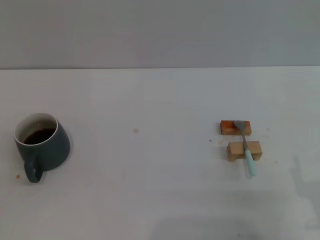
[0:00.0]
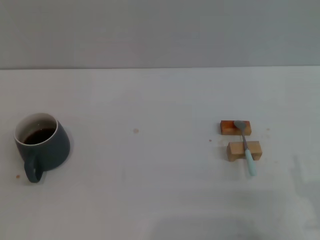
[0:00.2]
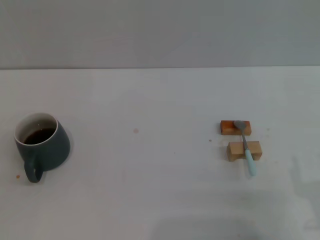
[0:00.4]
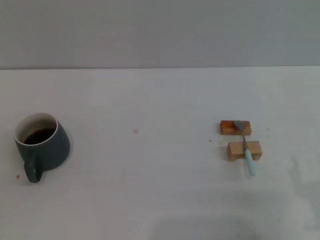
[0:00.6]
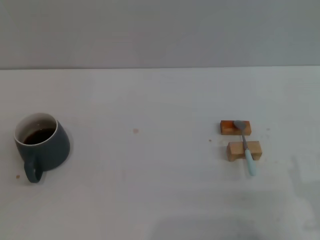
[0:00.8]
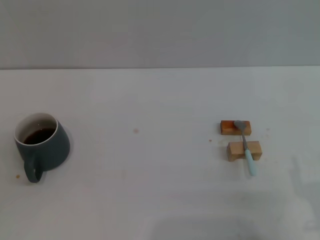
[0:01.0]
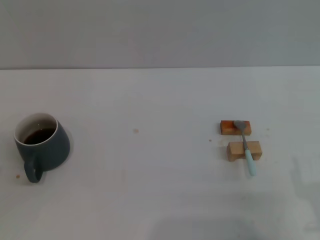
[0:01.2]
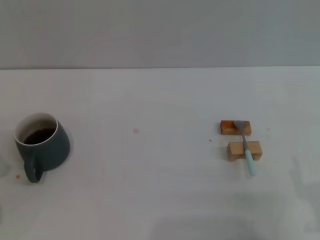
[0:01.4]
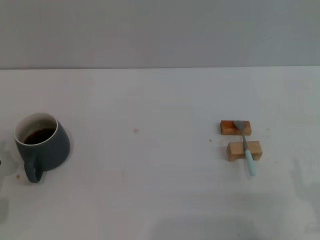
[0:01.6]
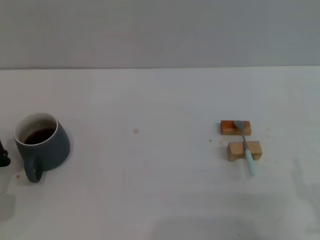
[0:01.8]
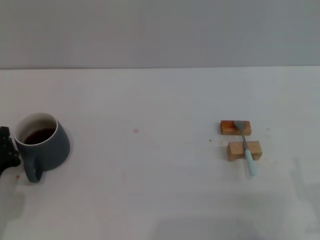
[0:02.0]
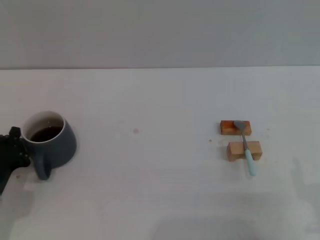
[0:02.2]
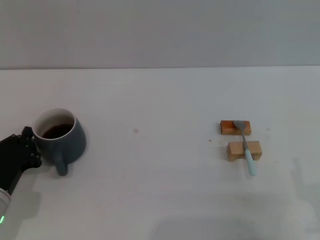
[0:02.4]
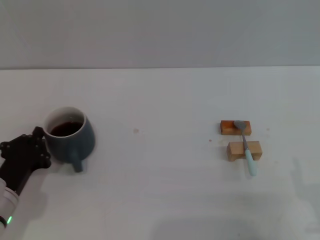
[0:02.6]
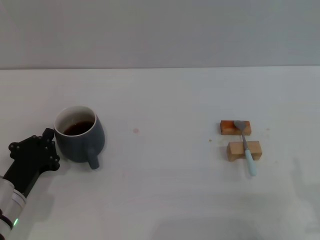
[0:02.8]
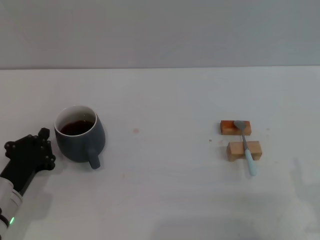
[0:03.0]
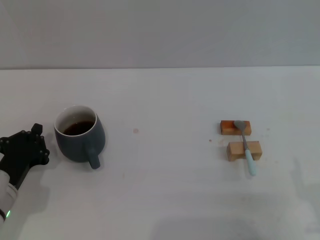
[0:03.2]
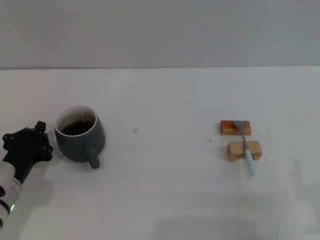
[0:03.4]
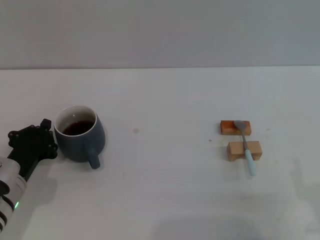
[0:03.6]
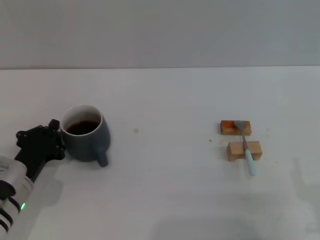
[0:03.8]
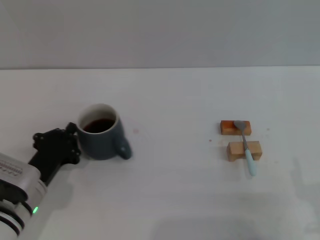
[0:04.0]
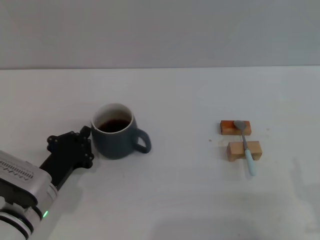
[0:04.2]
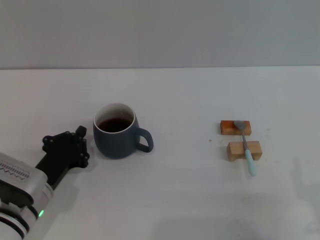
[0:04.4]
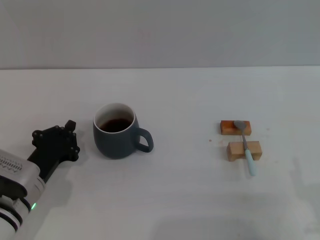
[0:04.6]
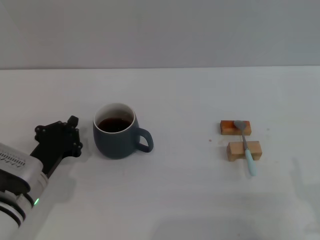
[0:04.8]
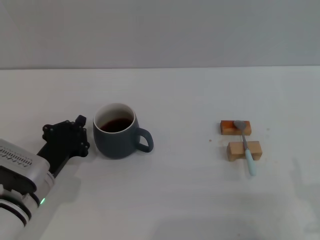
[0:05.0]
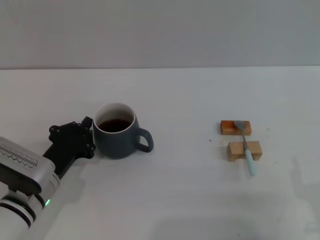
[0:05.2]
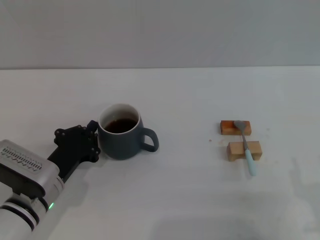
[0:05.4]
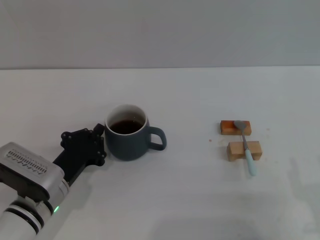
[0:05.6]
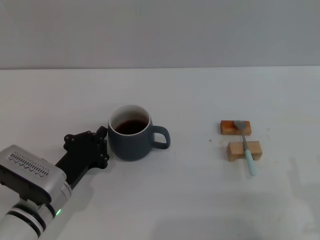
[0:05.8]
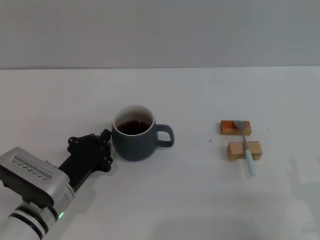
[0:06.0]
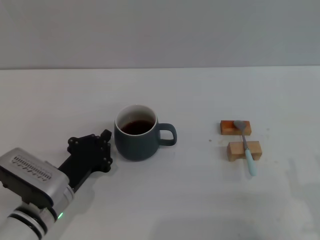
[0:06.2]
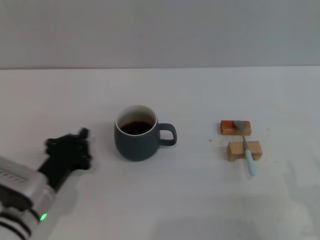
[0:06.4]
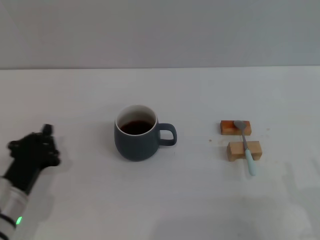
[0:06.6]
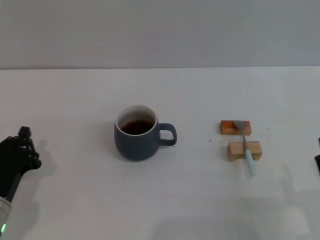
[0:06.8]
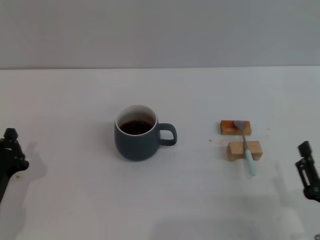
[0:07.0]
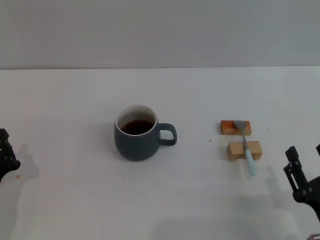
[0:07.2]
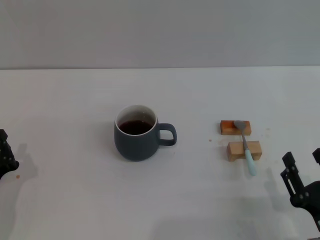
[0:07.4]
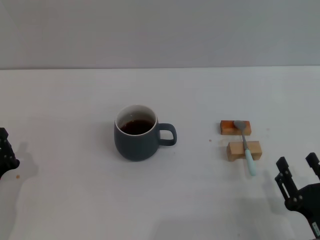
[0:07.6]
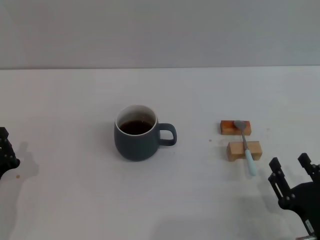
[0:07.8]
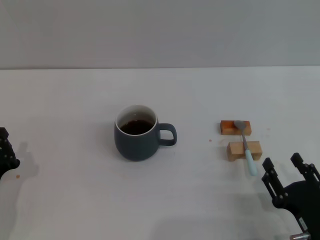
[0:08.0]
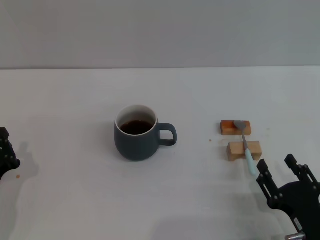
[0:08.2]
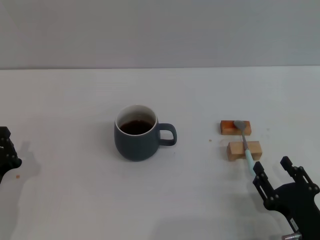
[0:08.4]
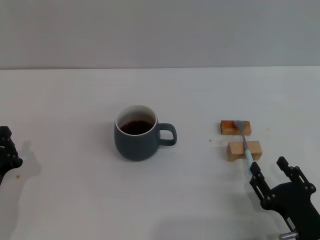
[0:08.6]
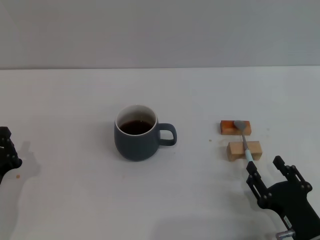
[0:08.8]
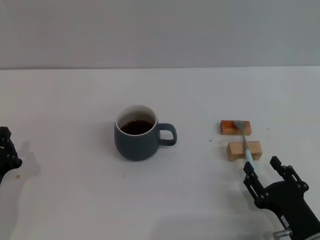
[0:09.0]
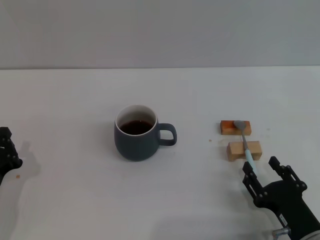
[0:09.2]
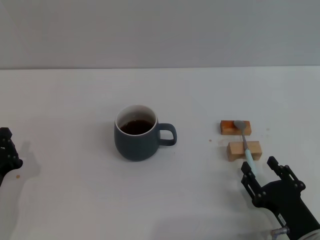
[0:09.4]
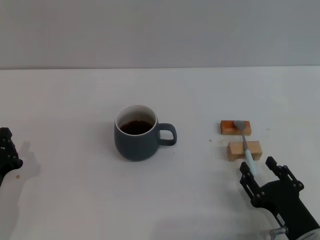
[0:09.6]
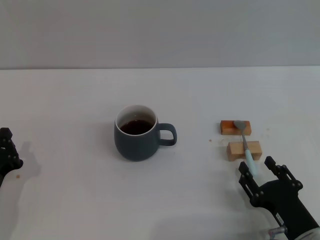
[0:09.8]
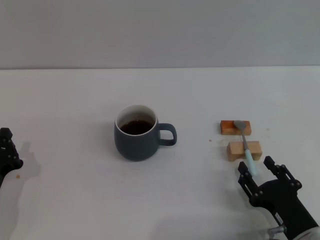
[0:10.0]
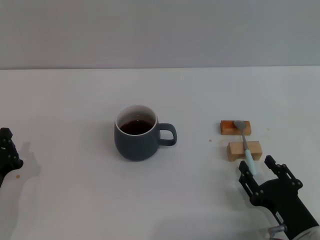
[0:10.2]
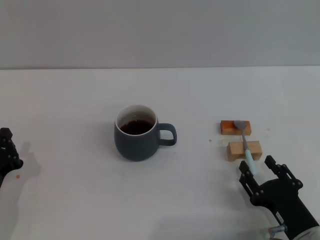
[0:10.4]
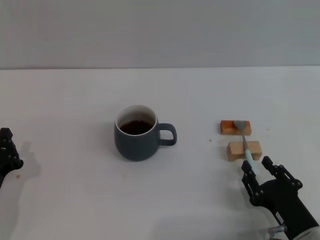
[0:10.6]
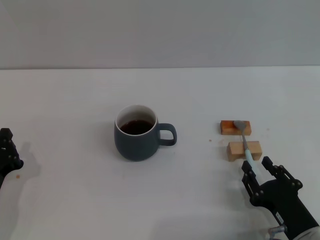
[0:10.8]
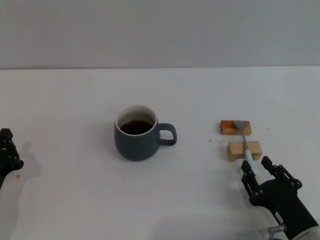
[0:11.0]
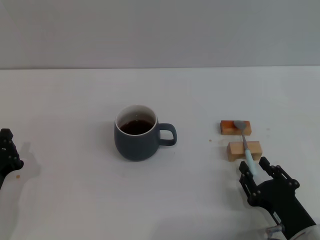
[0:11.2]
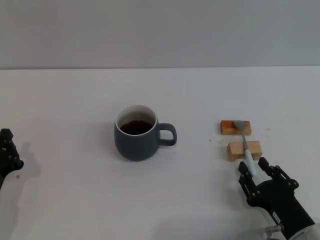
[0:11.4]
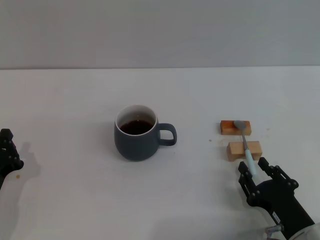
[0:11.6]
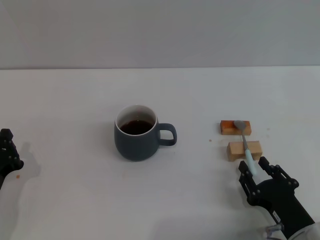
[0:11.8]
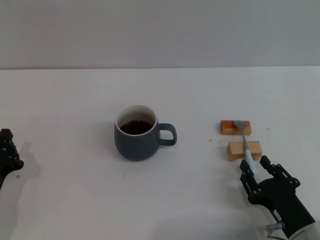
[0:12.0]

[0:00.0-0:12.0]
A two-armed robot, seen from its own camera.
Task of the whole recording: Move the grey cup to the center, lift the blue spoon, stir it three times in the cup, and put the spoon into the cup.
Step, 0:00.0 to 0:06.4: Move the cup with coffee to the center of view with the left gripper.
0:01.6 to 0:03.0: The left gripper moves to the right, about 5 cm.
0:03.0 to 0:04.4: The grippers stay close to where they were, moving slightly.
0:04.4 to 0:06.0: The grippers make only small movements.
0:06.0 to 0:07.6: The left gripper travels to the left by approximately 10 cm.
0:07.6 to 0:09.0: The grippers stay close to where they were, moving slightly.
0:09.0 to 0:12.0: Neither gripper changes place.

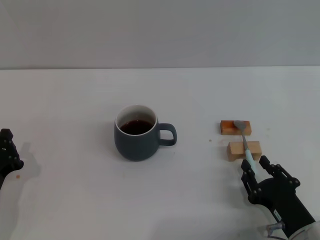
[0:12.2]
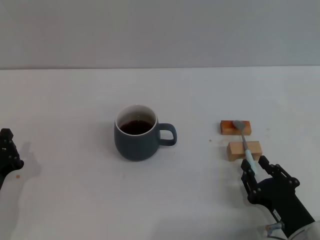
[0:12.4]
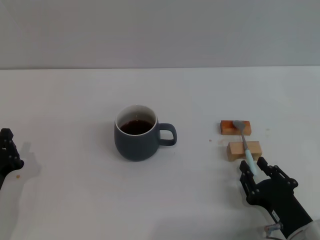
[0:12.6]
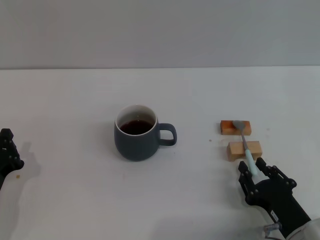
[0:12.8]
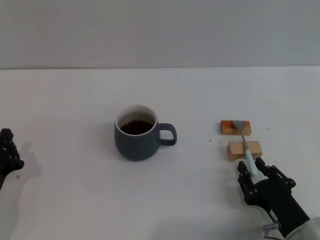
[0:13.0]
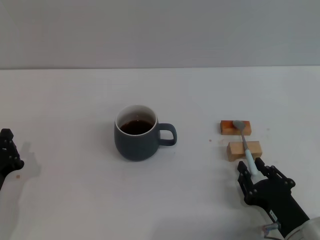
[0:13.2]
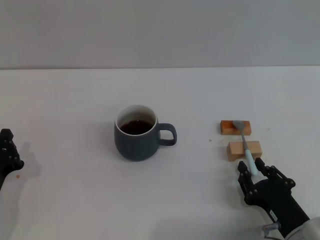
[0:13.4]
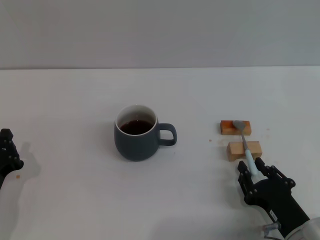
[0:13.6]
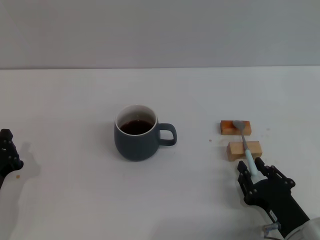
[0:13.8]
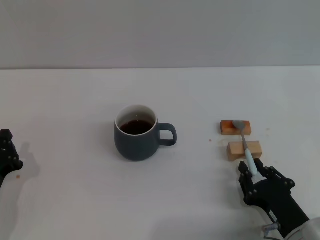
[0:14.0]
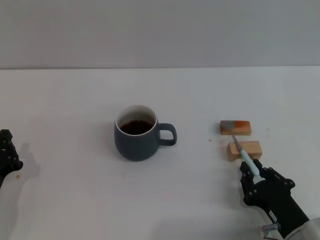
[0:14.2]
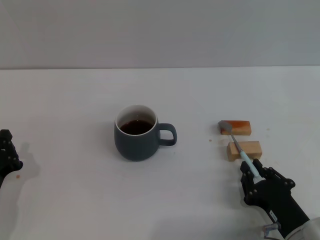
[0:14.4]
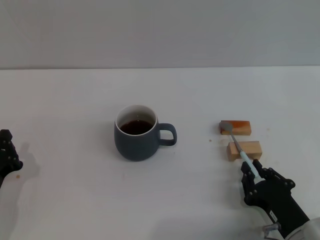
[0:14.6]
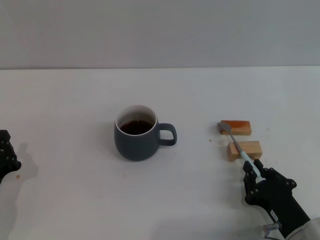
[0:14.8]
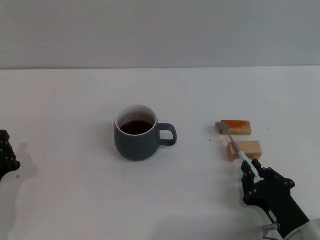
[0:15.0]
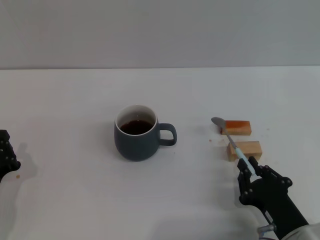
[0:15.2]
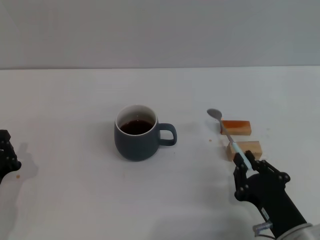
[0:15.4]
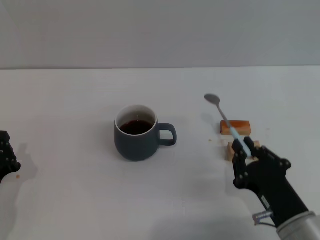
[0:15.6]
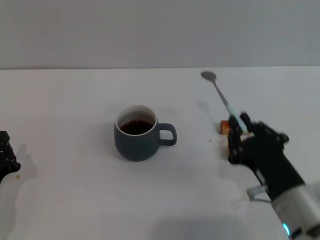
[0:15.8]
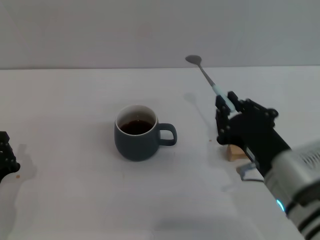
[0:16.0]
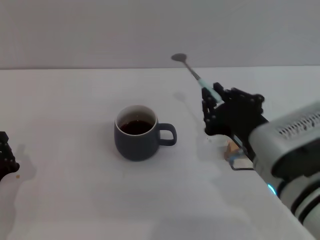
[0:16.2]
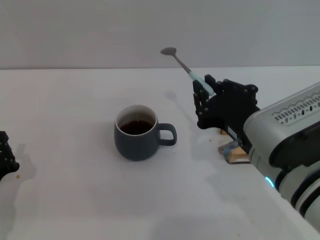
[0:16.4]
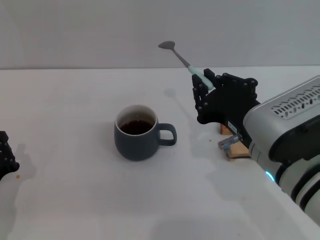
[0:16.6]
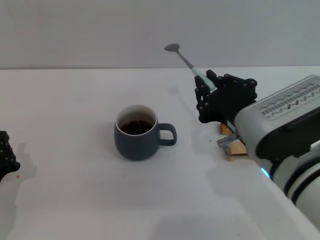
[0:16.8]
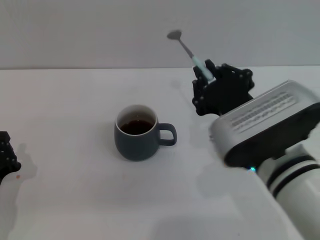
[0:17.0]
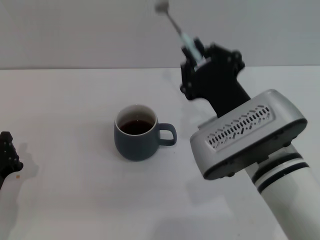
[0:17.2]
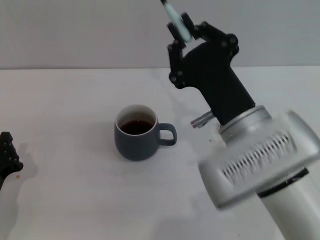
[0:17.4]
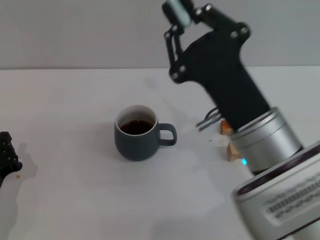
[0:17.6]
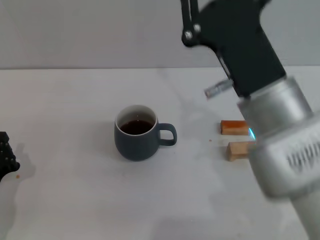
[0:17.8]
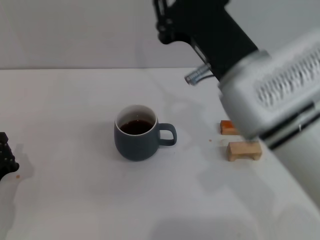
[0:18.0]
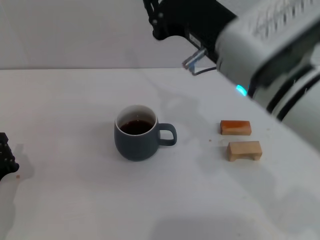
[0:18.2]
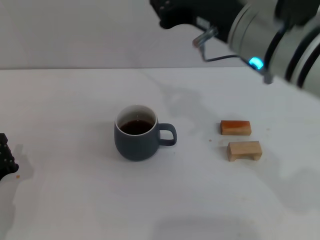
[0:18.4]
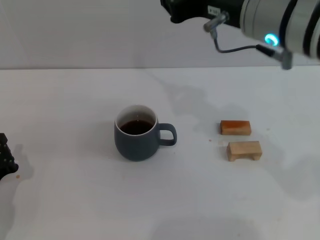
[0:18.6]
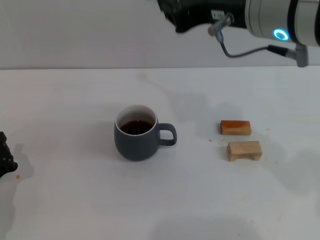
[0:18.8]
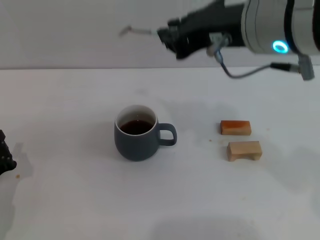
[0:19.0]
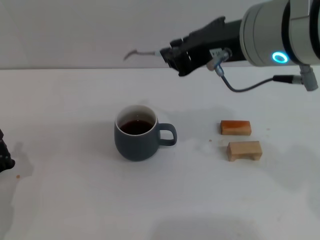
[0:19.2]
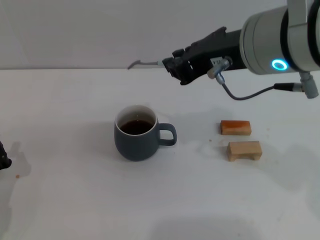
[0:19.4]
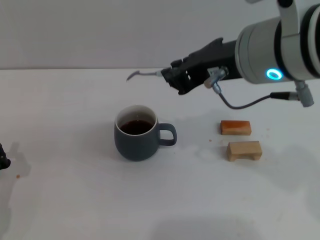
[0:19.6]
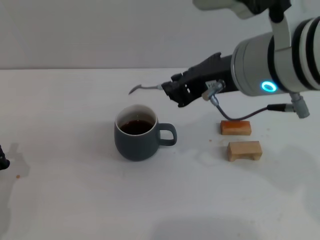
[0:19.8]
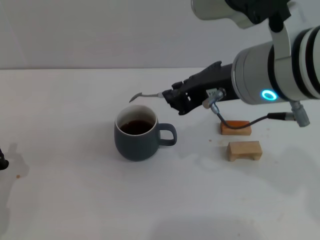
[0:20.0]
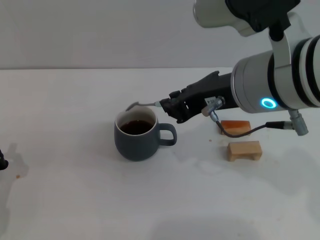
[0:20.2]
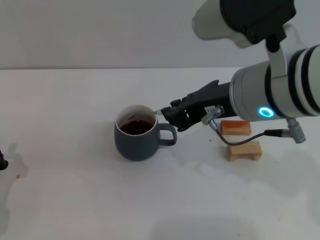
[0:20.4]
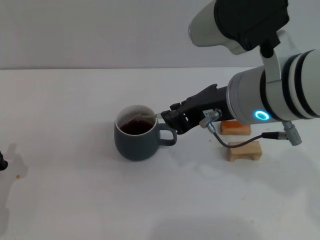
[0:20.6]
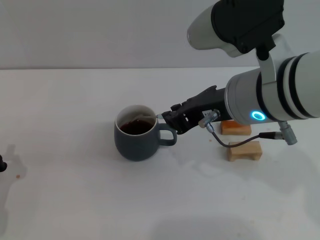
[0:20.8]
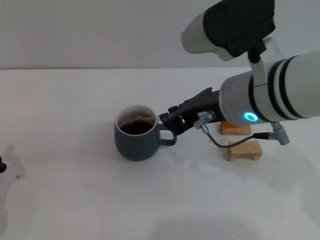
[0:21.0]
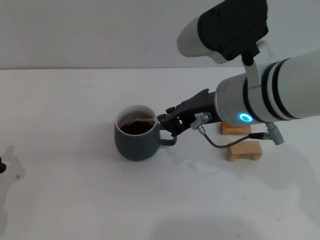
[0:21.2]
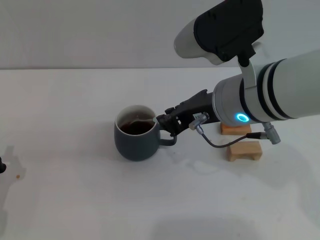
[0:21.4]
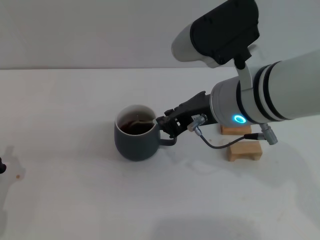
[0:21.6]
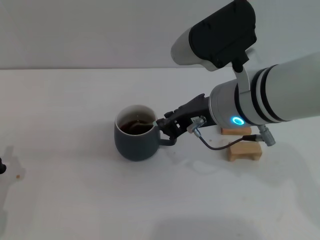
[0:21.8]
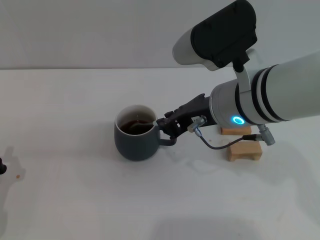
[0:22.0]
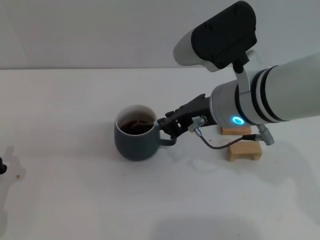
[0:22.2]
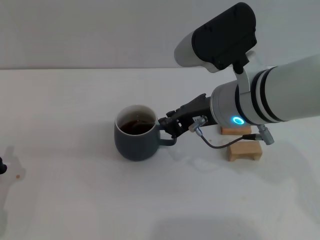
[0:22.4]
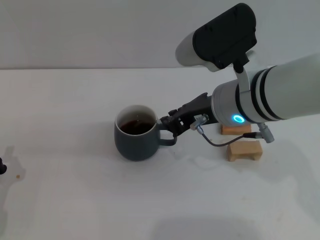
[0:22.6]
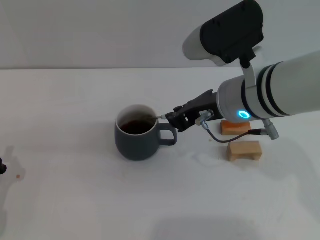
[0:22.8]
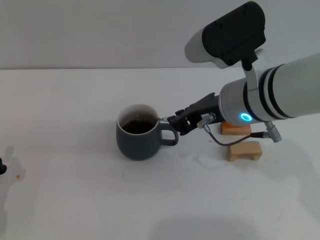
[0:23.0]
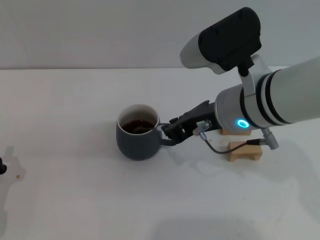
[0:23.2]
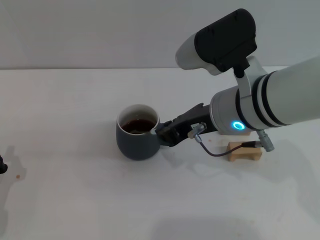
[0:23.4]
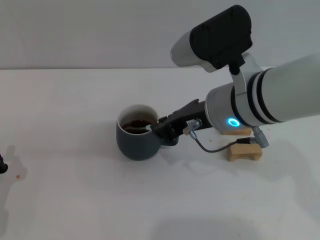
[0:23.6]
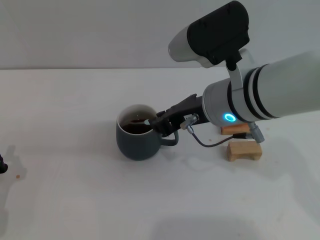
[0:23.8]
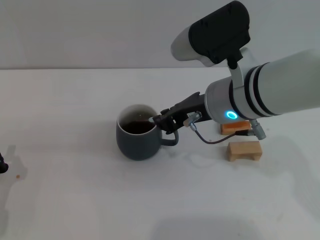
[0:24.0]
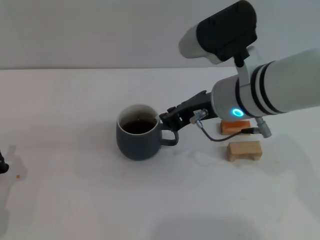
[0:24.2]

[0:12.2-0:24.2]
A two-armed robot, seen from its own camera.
Task of the whole recording: Move the grey cup to the center, lift the blue spoon, stir it three times in the cup, and put the spoon into the cup.
Step, 0:12.2 to 0:15.6: Pick up the spoon with the right gripper.
0:12.2 to 0:13.8: Both grippers stay about where they are.
0:13.8 to 0:15.2: The right gripper closes its fingers.
0:15.2 to 0:16.6: The right gripper goes about 15 cm upward.
0:16.6 to 0:18.2: The right gripper shifts some 10 cm upward and forward.
0:19.8 to 0:21.2: The right gripper travels downward by about 5 cm.
0:21.2 to 0:22.6: The grippers stay close to where they were, moving slightly.
0:22.6 to 0:24.2: Both grippers stay put.
